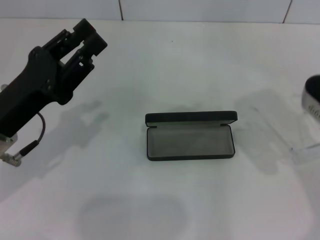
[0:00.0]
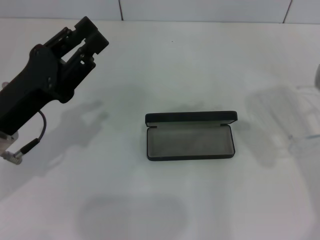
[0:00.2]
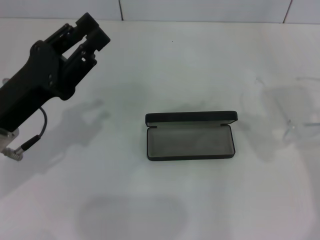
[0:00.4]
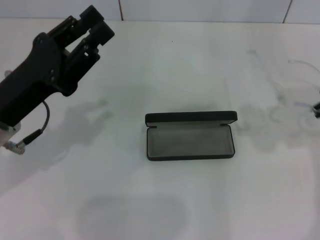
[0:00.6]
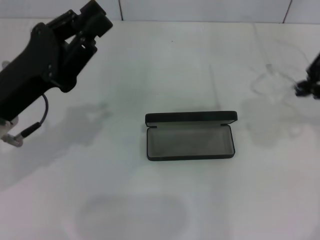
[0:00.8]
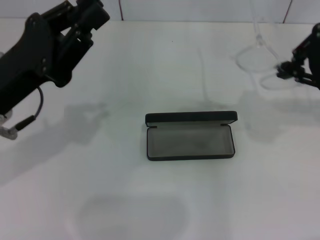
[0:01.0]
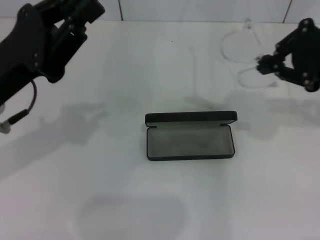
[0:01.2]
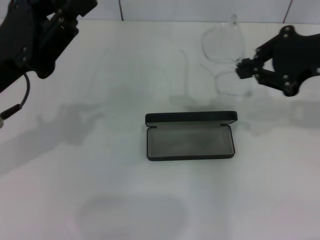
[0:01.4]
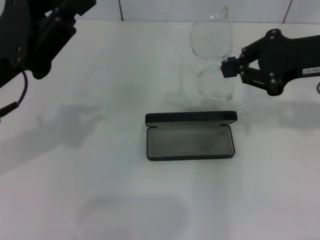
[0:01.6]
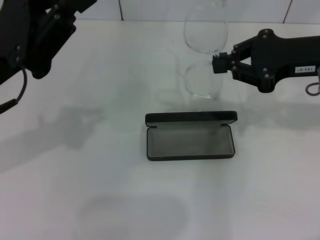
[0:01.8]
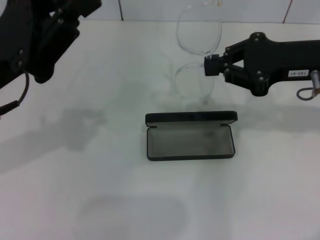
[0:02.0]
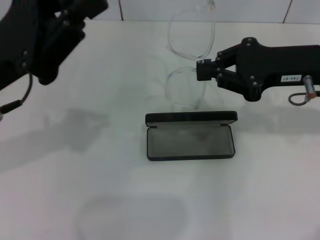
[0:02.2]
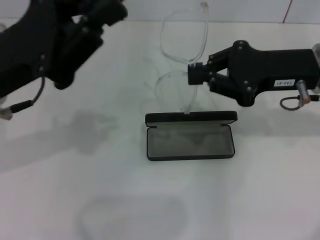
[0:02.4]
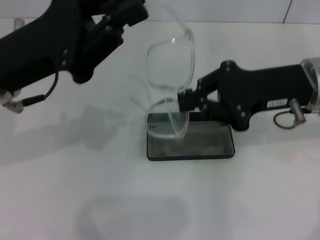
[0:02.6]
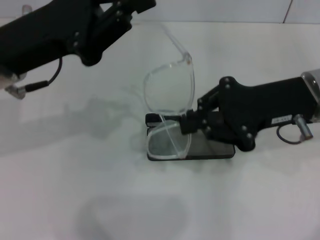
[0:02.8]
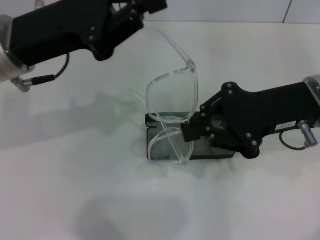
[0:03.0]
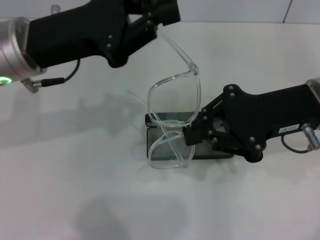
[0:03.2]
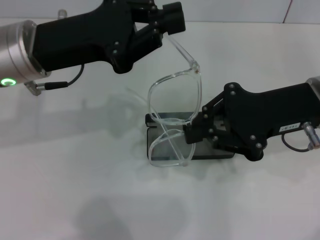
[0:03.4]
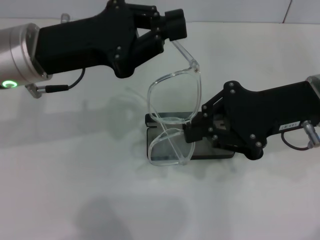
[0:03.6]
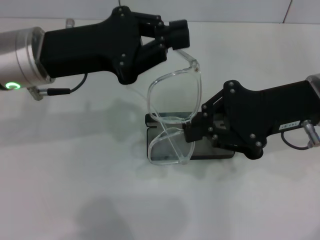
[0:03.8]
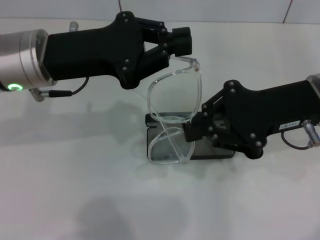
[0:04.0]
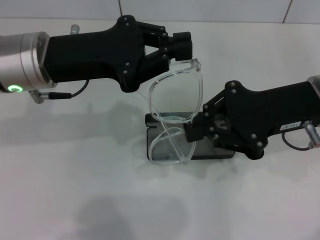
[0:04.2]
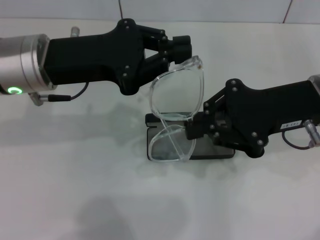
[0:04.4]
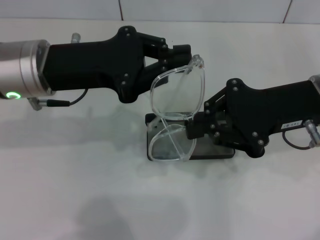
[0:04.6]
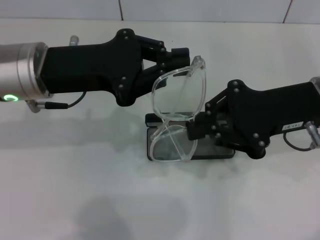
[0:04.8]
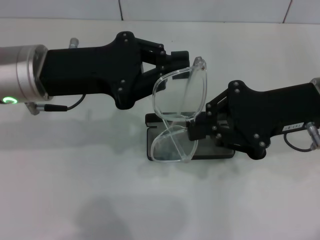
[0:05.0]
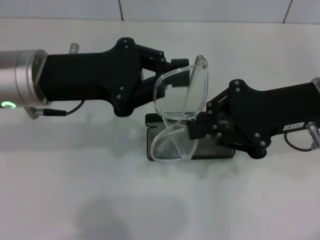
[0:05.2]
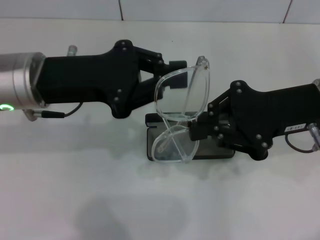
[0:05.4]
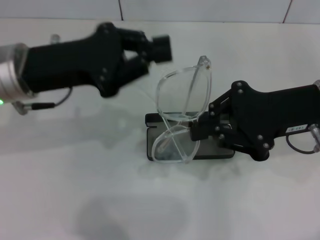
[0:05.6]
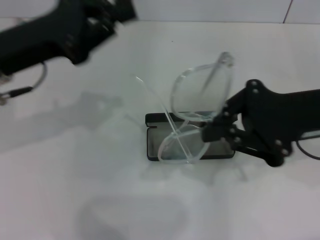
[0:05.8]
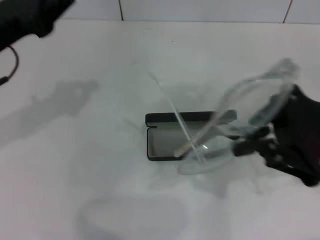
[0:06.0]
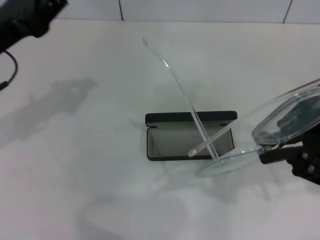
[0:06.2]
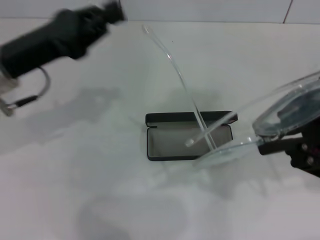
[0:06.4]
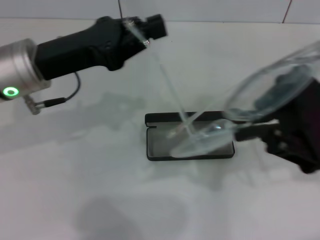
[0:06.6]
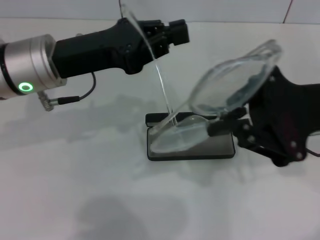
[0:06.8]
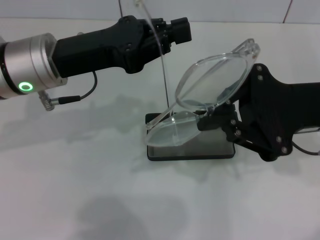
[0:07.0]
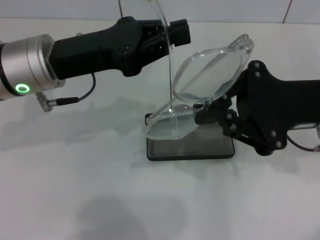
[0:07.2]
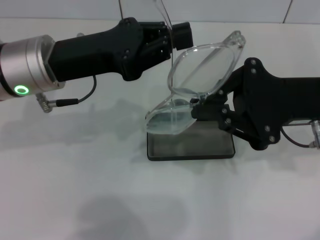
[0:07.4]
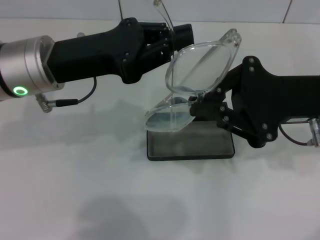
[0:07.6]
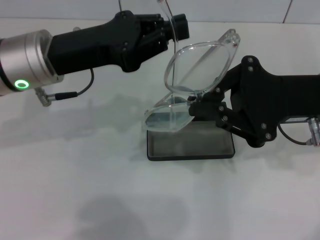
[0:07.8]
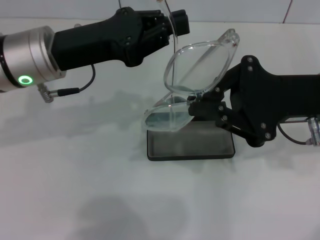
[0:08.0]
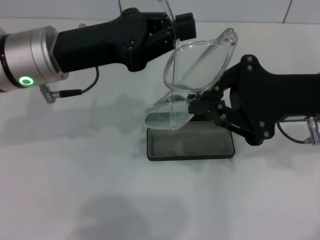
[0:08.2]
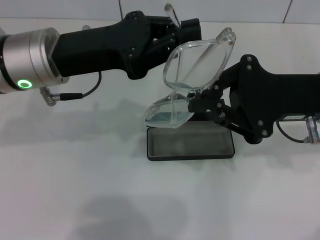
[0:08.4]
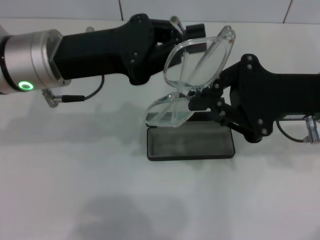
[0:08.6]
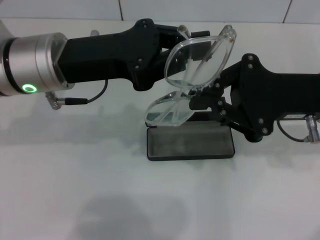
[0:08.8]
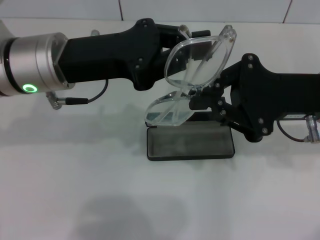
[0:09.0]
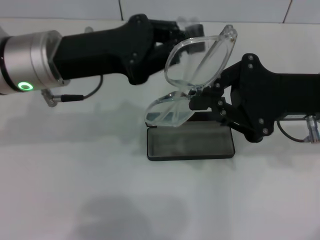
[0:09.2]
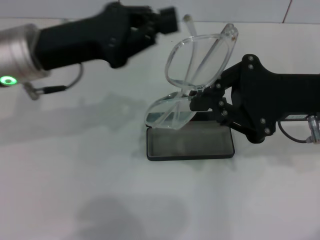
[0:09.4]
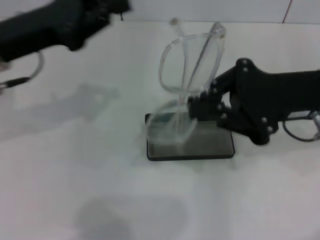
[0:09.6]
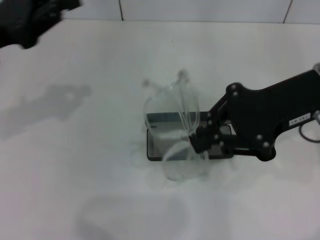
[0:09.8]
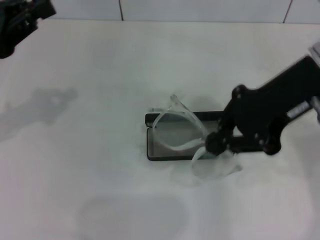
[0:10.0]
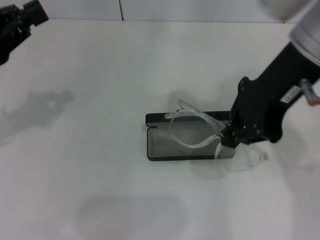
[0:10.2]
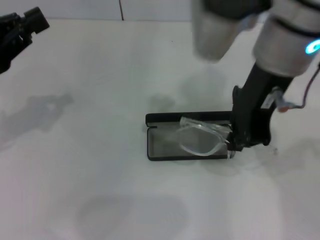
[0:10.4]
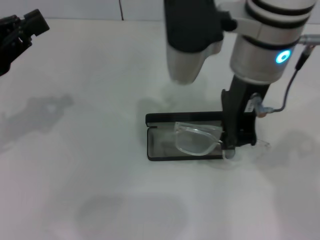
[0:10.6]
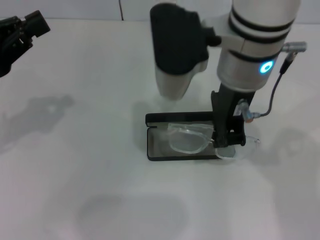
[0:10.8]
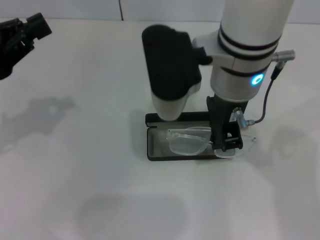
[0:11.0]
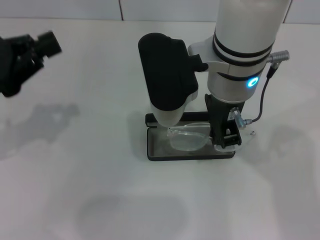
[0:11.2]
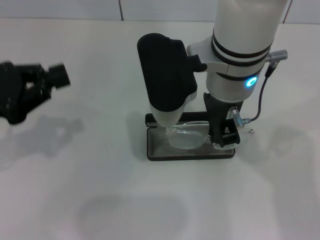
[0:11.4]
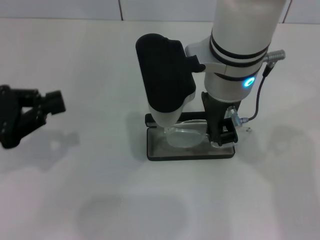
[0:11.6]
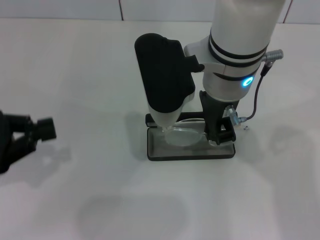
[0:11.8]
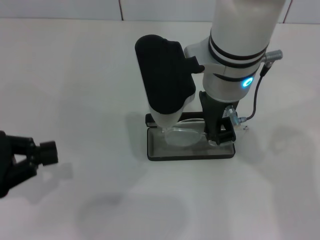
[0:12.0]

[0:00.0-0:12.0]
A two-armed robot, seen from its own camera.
Step, 0:00.0 to 0:09.0: Fold the frame with your left hand.
0:00.0 to 0:01.6: The left gripper is displaced upward by approximately 5 cm.
0:01.6 to 0:03.0: The right gripper ends up approximately 5 cm from where it was; the left gripper ends up approximately 5 cm from where it was.
0:04.4 to 0:06.0: The right gripper changes place by roughly 5 cm. The left gripper heads to the left, covering about 10 cm.
0:06.0 to 0:07.6: The left gripper heads to the right, covering about 10 cm.
0:07.6 to 0:09.0: The grippers make only small movements.
0:09.0 to 0:10.4: The left gripper shifts some 15 cm to the left. Meanwhile the right gripper goes some 15 cm to the left and upward.
0:10.4 to 0:12.0: The right gripper moves downward and to the left, roughly 10 cm. The left gripper goes roughly 5 cm backward.

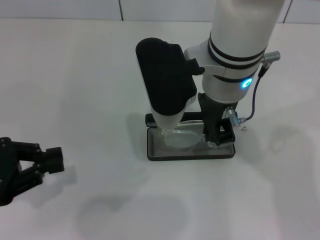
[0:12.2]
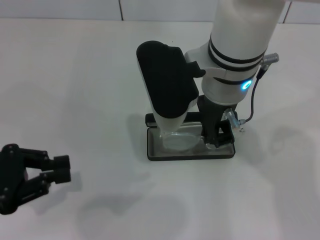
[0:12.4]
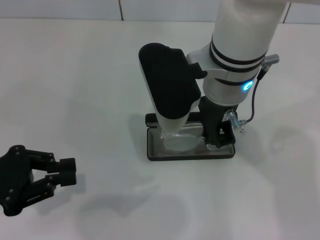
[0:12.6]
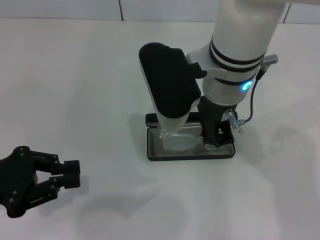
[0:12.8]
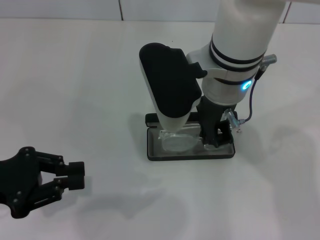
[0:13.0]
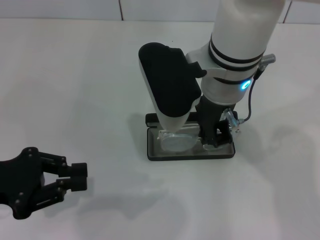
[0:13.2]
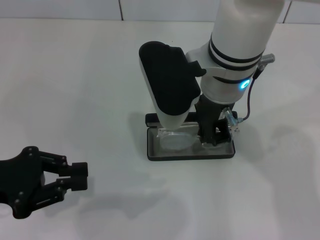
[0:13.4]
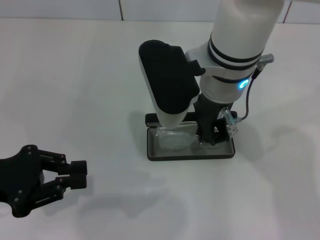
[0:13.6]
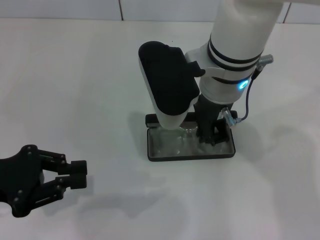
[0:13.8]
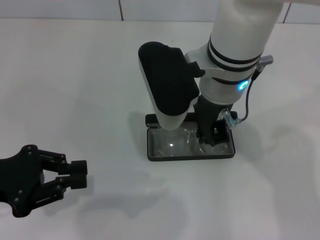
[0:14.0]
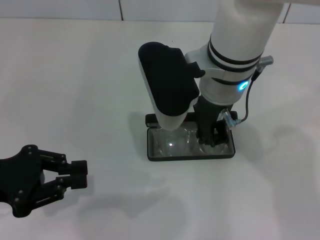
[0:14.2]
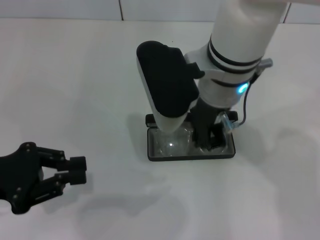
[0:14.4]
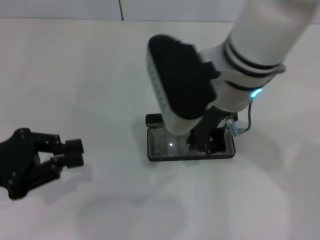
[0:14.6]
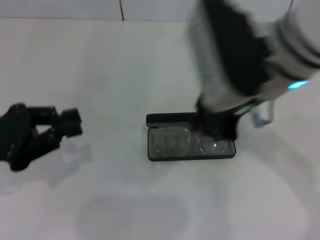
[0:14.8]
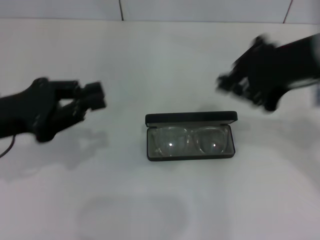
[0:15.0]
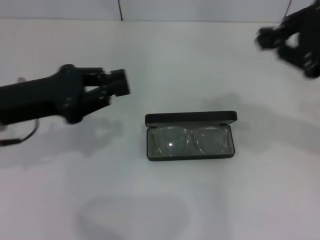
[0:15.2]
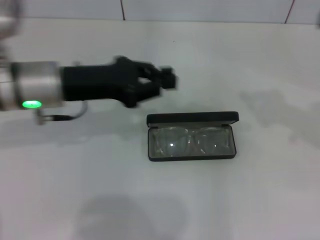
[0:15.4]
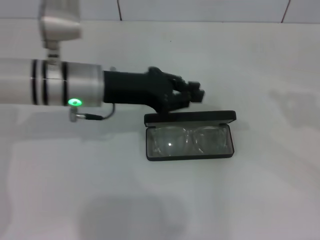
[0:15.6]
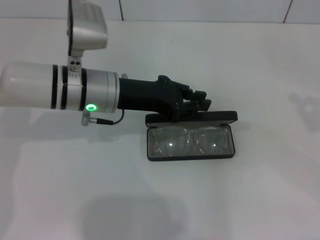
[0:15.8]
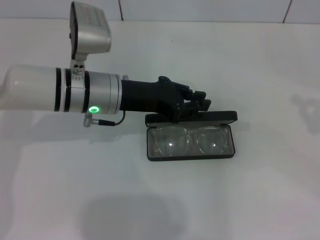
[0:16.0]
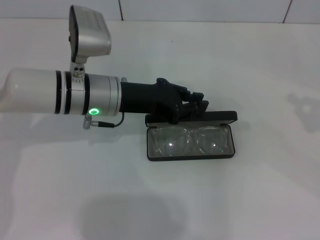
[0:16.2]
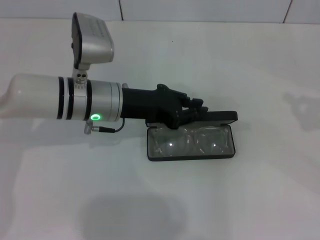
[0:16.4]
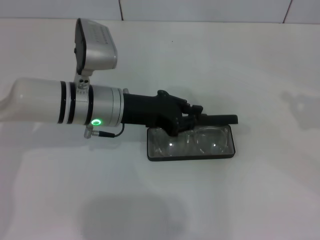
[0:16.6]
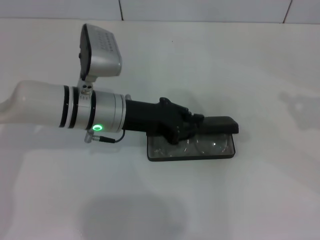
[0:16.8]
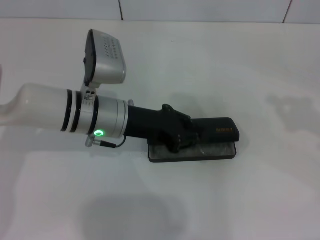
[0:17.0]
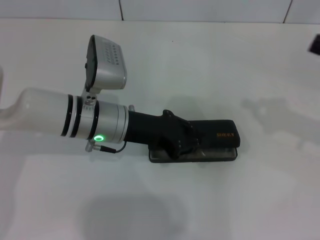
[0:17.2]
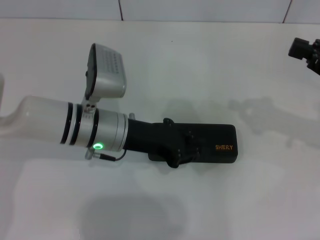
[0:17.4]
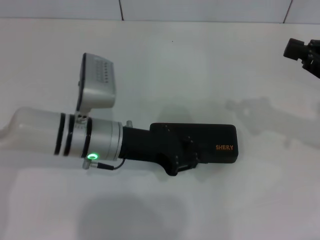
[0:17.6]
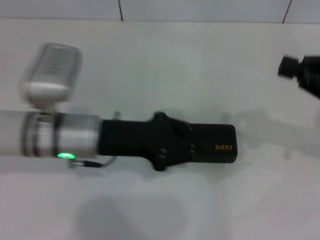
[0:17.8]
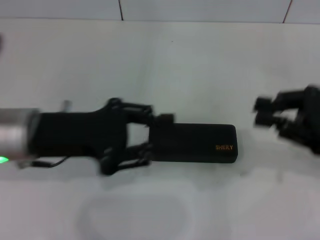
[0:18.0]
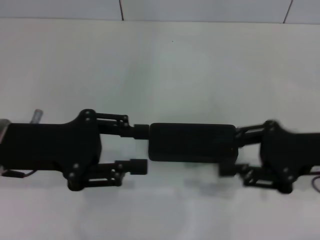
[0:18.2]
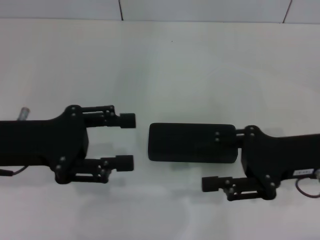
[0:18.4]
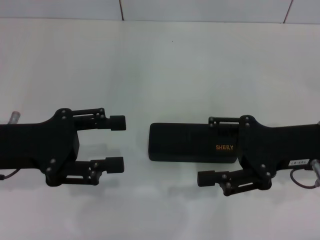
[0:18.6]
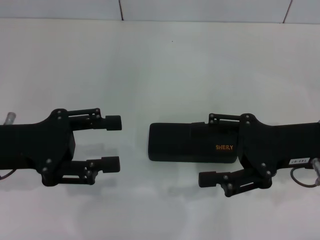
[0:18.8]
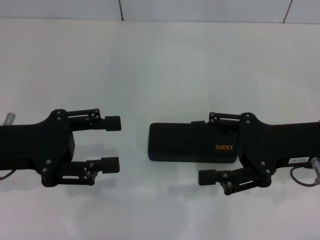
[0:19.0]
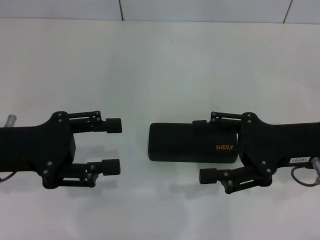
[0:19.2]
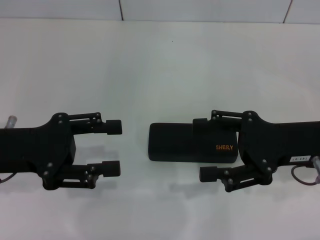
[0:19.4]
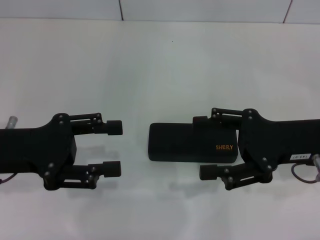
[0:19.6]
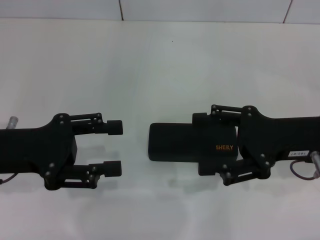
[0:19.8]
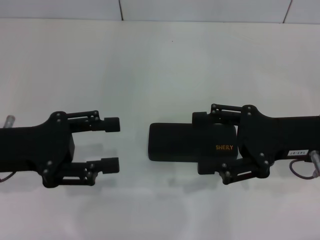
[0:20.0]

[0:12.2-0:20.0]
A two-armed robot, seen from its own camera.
Step, 0:14.2 to 0:17.2: Close the glasses case with your left hand.
0:12.2 to 0:13.8: The grippers make only small movements.
0:13.8 to 0:15.4: The right gripper travels to the right by about 30 cm; the left gripper shifts roughly 15 cm to the right and forward.
0:15.4 to 0:16.8: The left gripper shifts approximately 10 cm to the right and downward, while the right gripper goes about 10 cm downward and to the right.
0:16.8 to 0:18.4: The right gripper travels to the left by some 15 cm, and opens its fingers. Meanwhile the left gripper travels to the left, backward and upward by approximately 15 cm, and opens up.
0:18.4 to 0:20.0: The right gripper opens up.

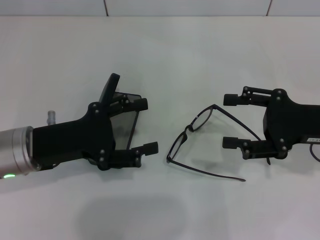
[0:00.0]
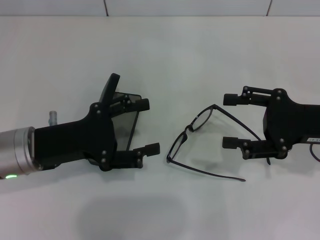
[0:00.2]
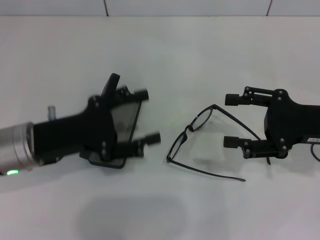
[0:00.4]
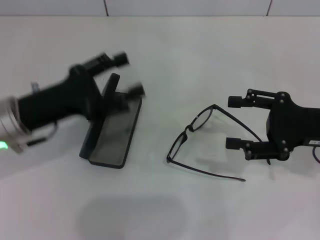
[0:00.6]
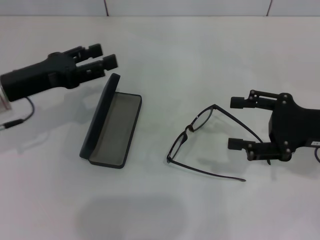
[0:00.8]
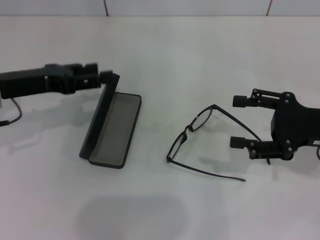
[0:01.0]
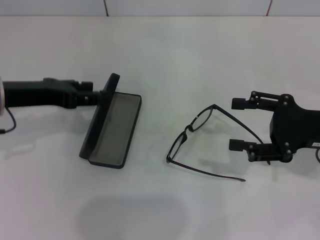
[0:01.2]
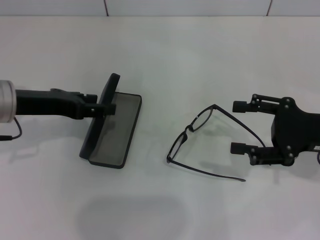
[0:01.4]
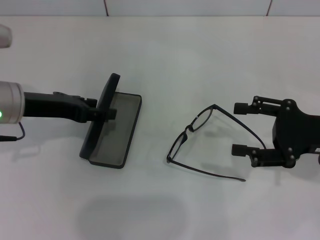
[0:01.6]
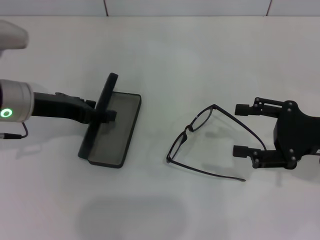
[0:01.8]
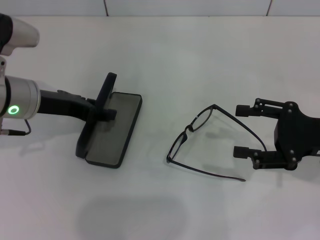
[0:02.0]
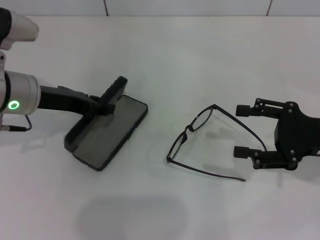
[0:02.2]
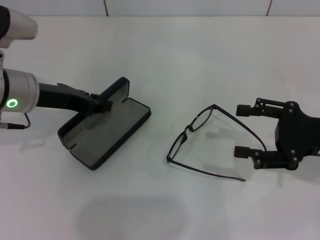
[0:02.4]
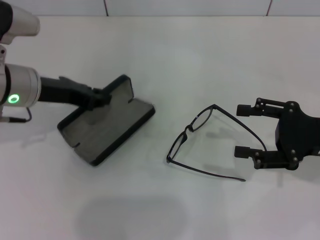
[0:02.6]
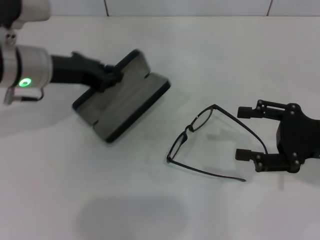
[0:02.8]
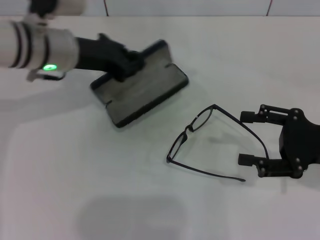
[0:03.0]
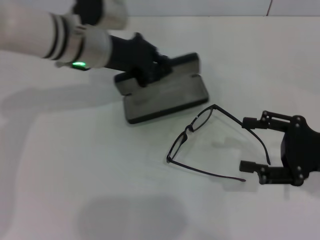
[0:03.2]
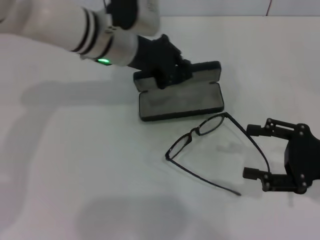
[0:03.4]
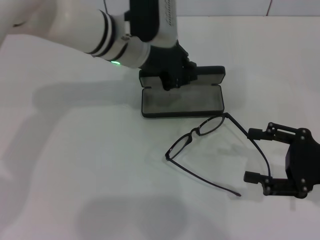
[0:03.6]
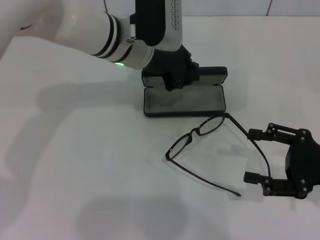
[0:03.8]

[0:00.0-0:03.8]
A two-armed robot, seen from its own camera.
Step, 0:00.0 to 0:02.4: Grab the glasses case with your left hand.
0:00.0 to 0:01.2: The left gripper shifts some 10 cm upward and forward.
0:01.2 to 0:02.6: The left gripper closes.
0:02.6 to 0:03.8: The left gripper travels to the right and forward by approximately 15 cm.
